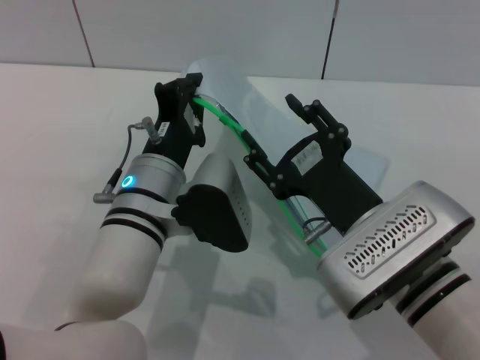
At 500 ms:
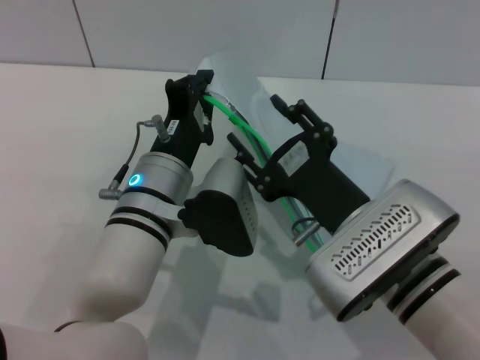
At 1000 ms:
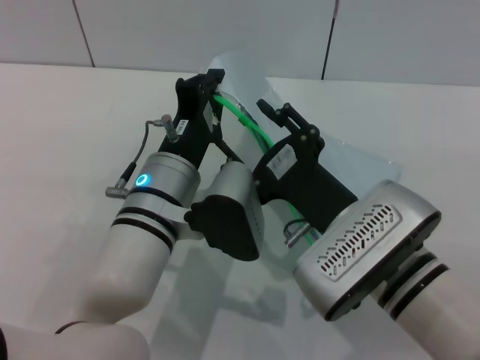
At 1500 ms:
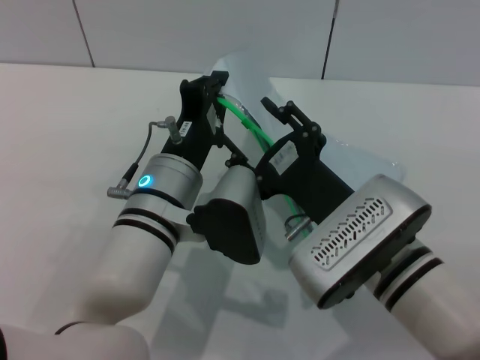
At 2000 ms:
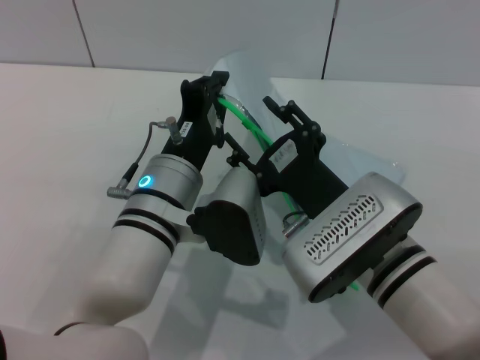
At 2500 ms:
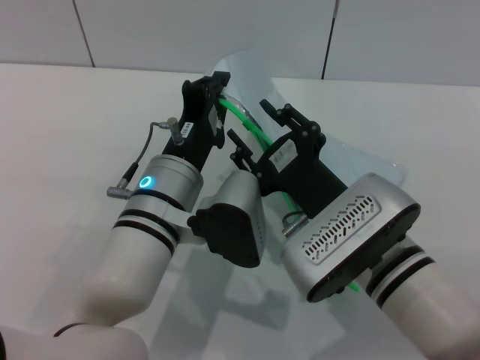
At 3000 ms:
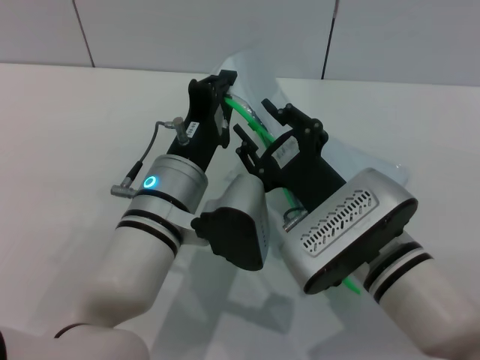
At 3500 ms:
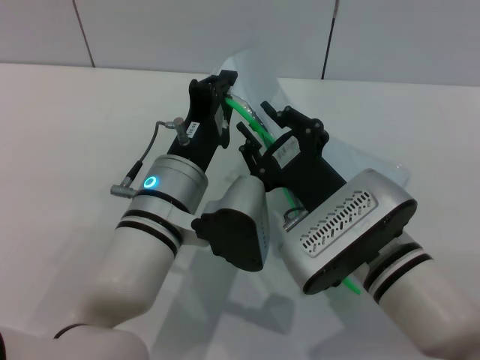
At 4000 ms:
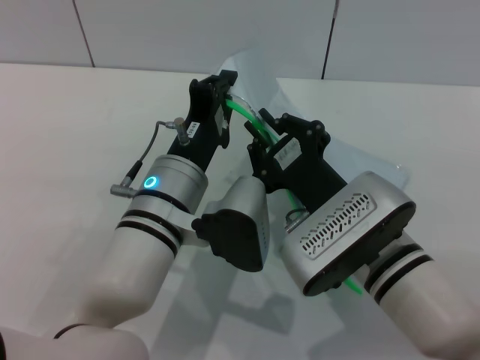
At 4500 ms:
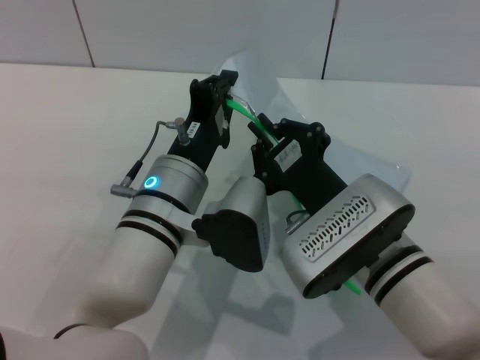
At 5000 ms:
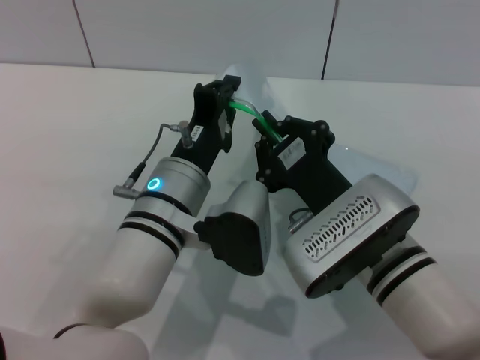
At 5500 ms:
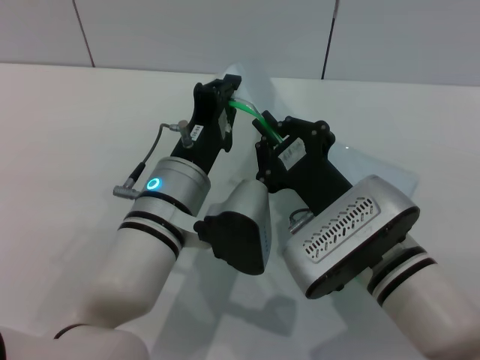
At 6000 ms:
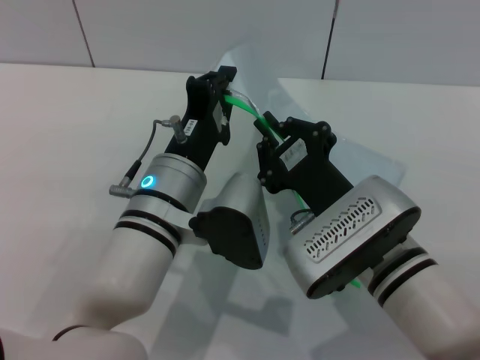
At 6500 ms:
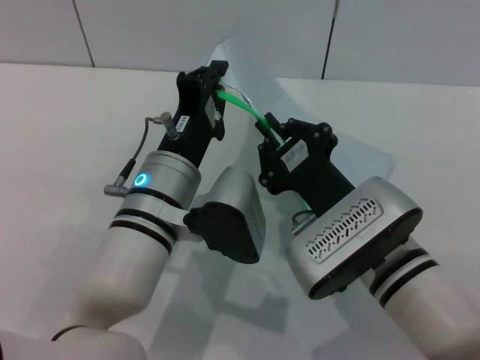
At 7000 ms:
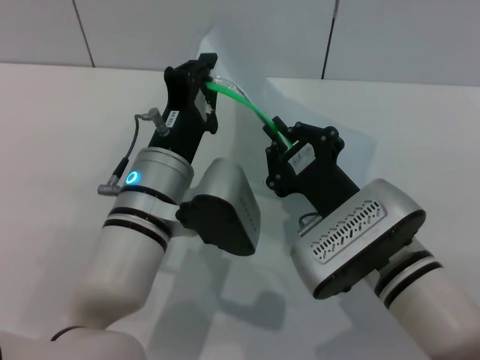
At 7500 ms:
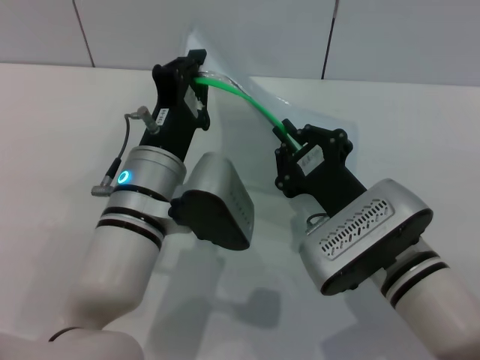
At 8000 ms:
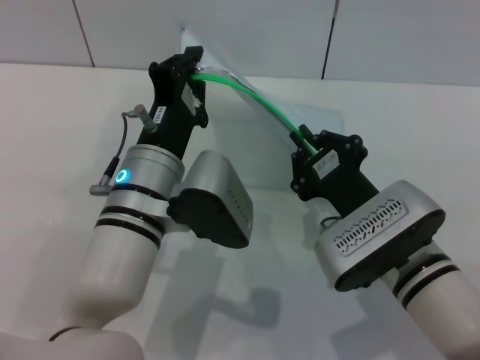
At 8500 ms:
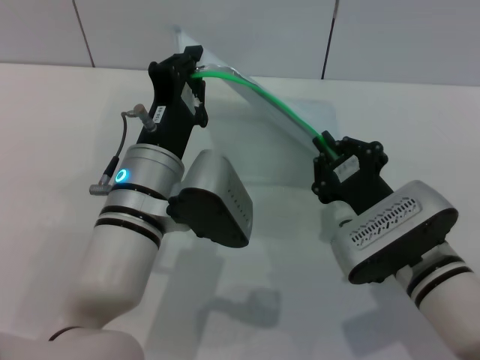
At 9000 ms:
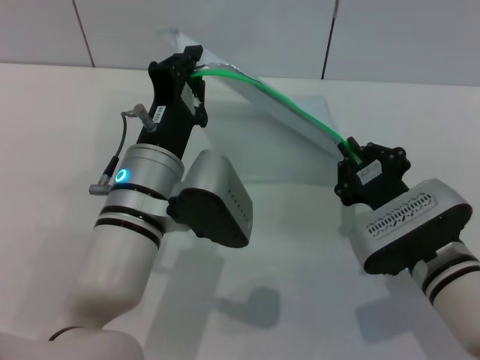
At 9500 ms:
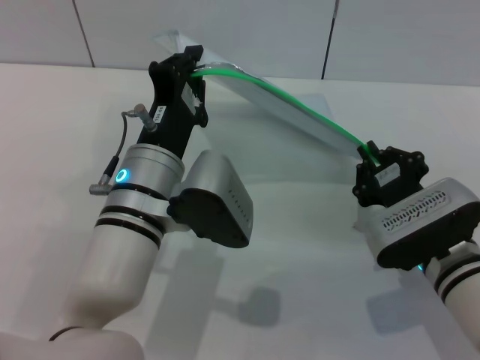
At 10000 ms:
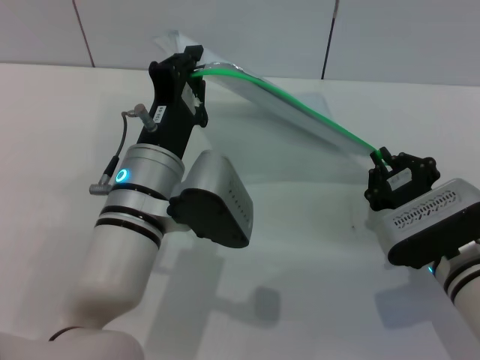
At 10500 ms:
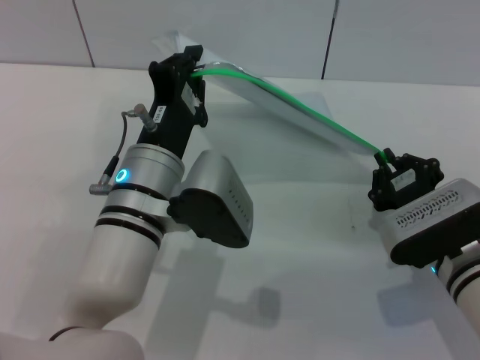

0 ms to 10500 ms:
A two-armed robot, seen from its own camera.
2000 ms to 4000 ms: The right gripper closes up.
4000 ms to 6500 ms: The grippers move only a little.
6500 ms to 8500 ms: The right gripper ends up some 5 cm from where it was.
8500 ms to 10500 ms: The right gripper heads to the right, covering some 5 cm.

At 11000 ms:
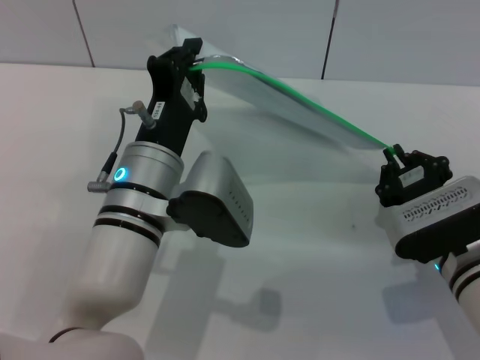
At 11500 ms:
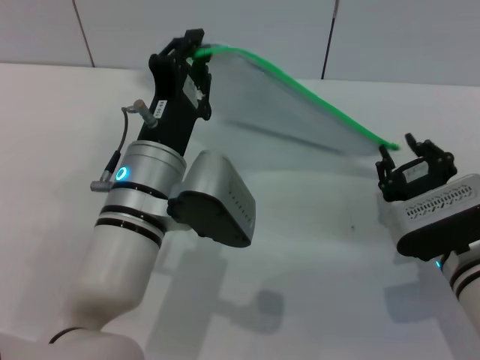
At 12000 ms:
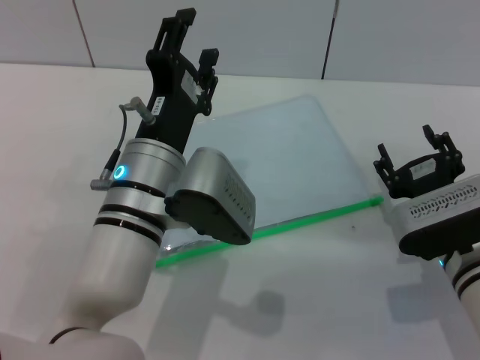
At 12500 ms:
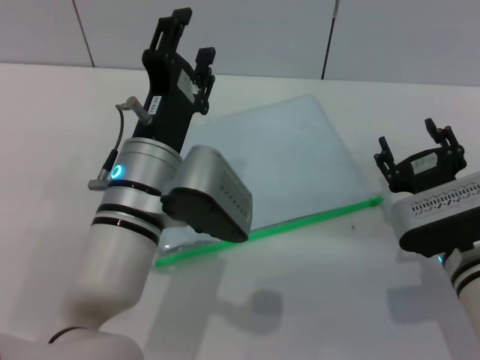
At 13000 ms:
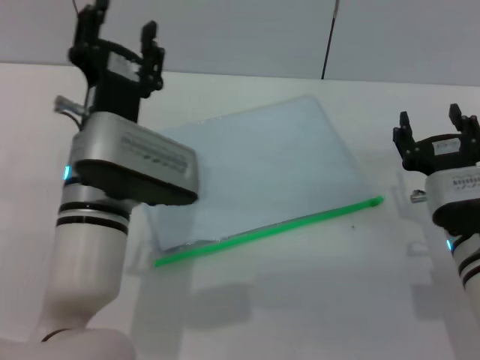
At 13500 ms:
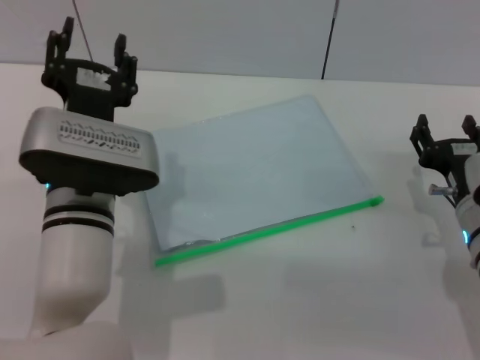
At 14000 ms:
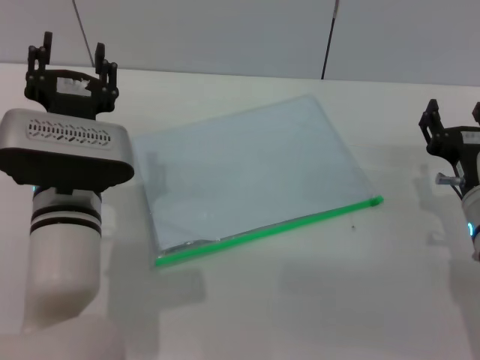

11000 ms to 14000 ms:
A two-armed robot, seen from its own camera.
Step, 12000 ms to 12500 ms: Place the transparent plastic bag.
11000 ms to 12500 ms: The right gripper opens up; the left gripper opens.
12500 ms to 14000 ms: The left gripper travels to the left by about 5 cm.
